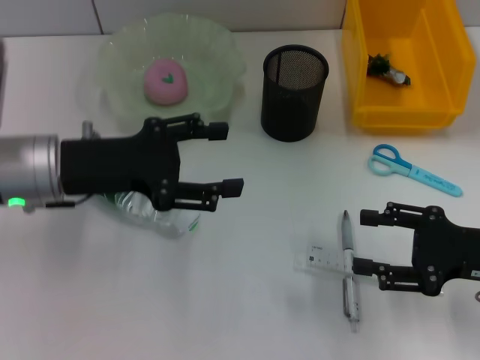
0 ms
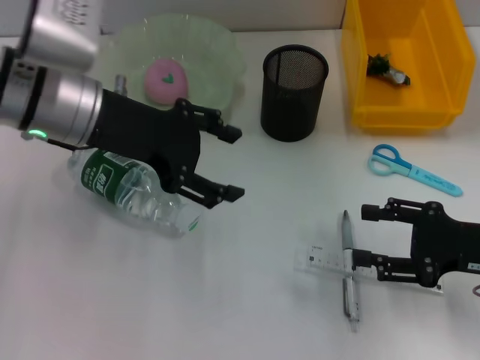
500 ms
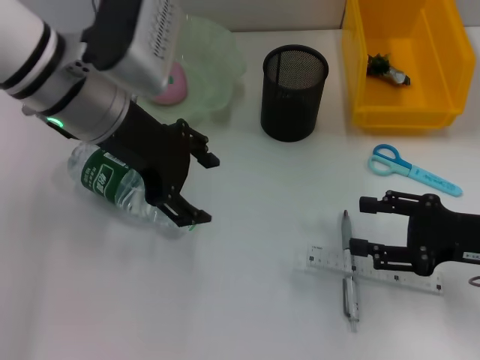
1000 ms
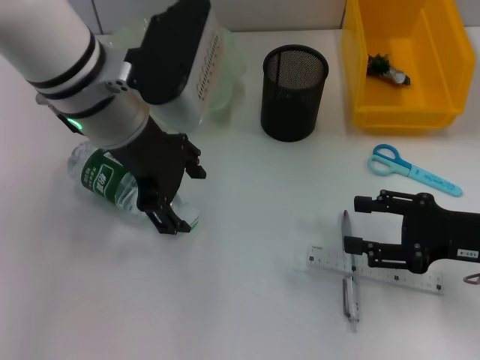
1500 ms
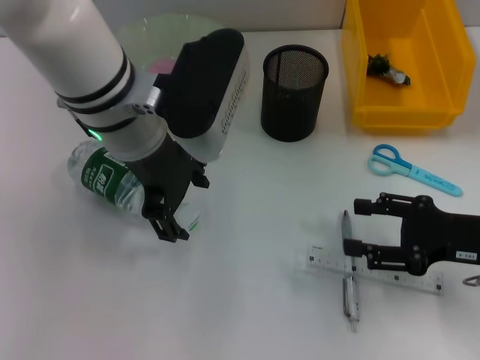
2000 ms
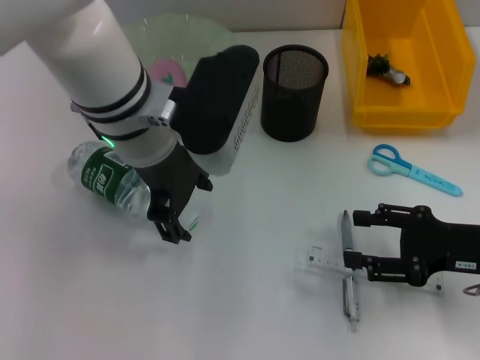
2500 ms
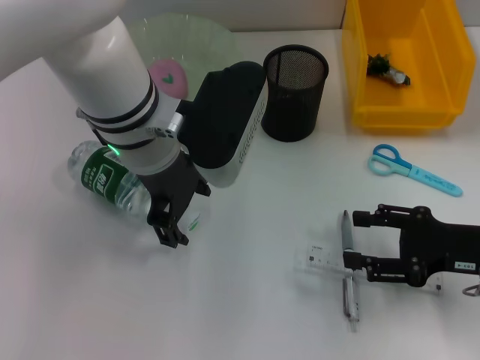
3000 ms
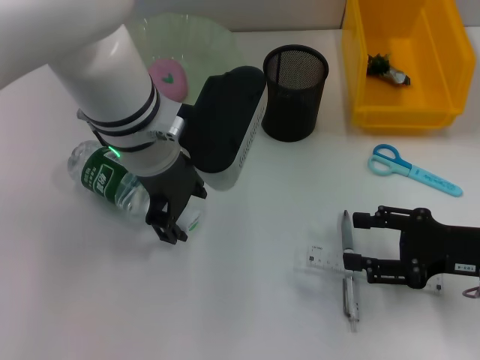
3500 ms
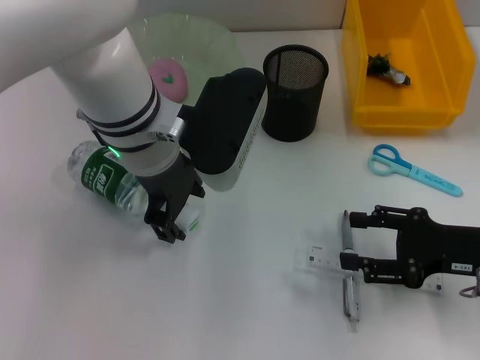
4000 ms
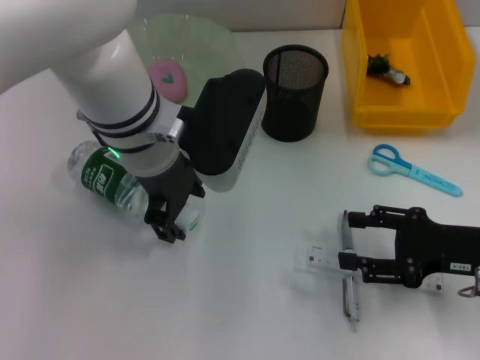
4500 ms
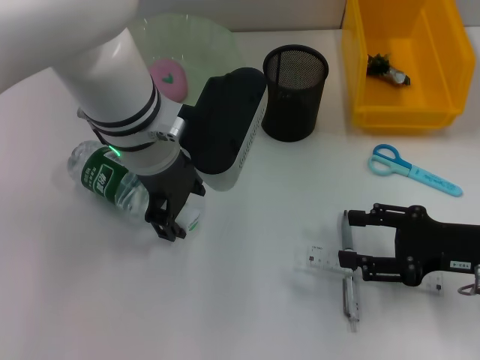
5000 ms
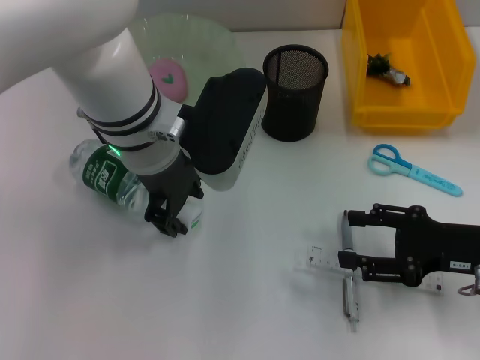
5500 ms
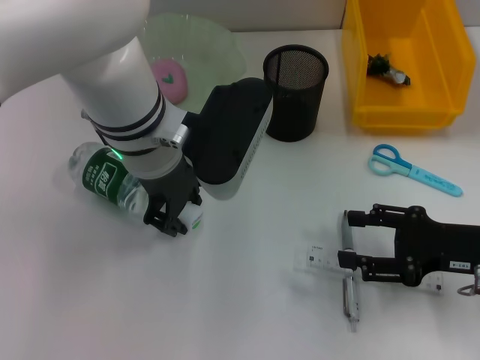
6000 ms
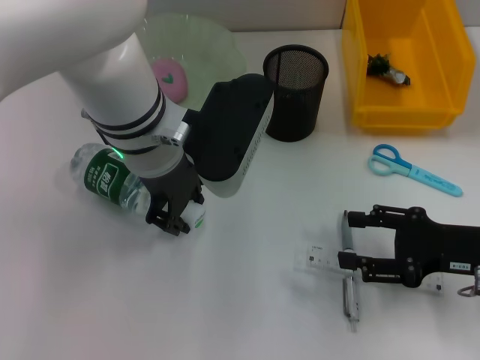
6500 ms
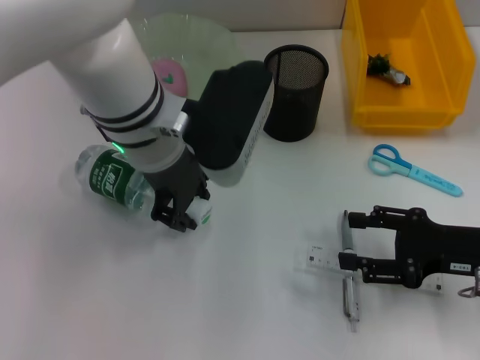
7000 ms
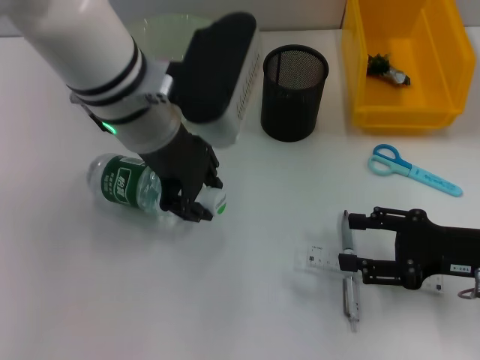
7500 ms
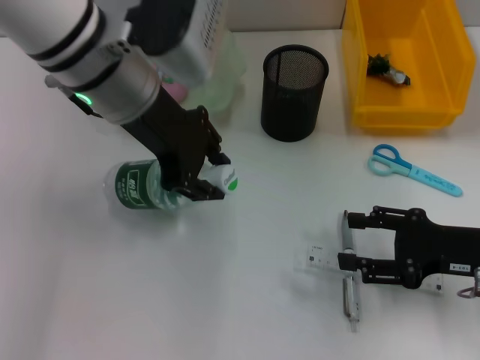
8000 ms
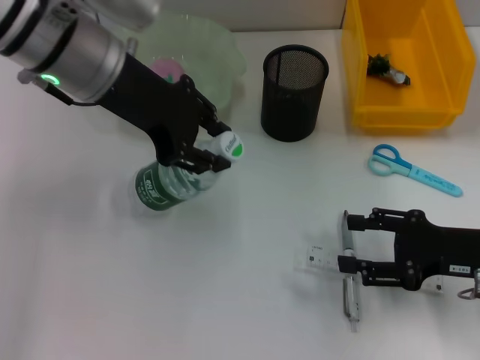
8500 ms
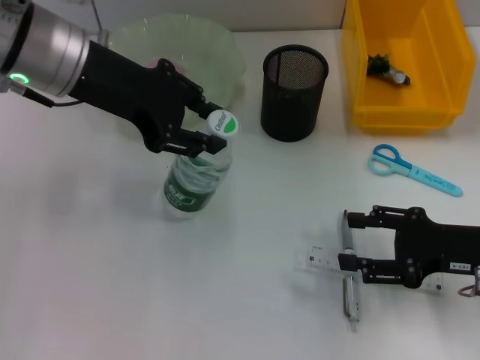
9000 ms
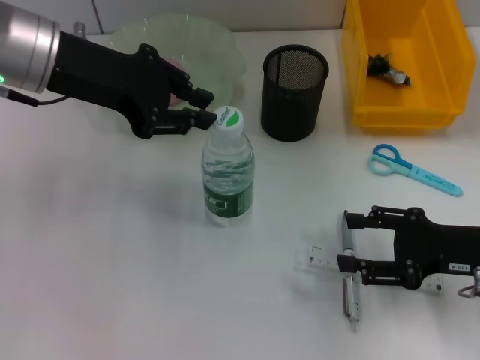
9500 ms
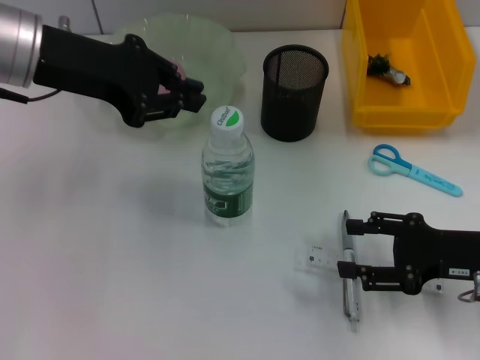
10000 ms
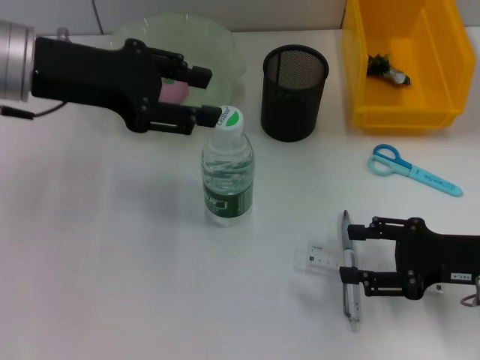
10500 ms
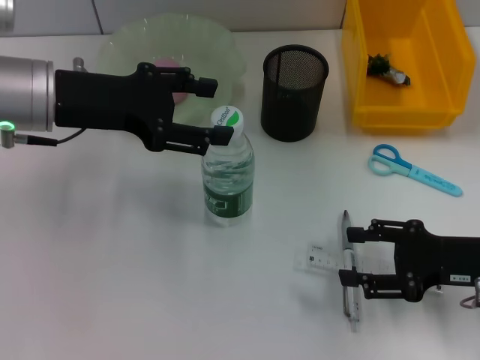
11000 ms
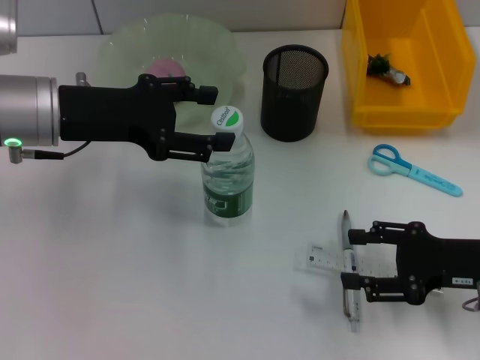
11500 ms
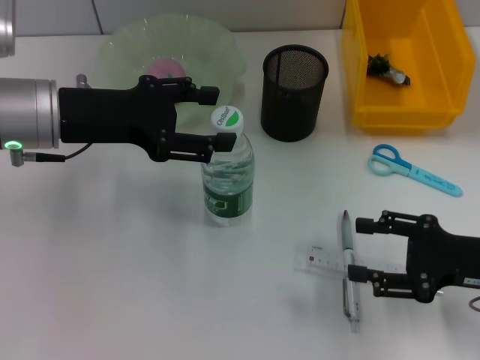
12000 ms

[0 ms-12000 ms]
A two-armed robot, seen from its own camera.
Step, 0 ms to 6000 ms: Grab the water bottle with the left hand.
Step, 6500 ms to 10500 ms: Place the water bottle on the table with the left hand.
0 ms to 2000 ms: The left gripper moves to the right and upward, about 15 cm.
2000 ms to 4000 ms: The grippers stay close to where they were, moving slightly.
4000 ms to 6000 ms: The two grippers keep their place.
6000 ms to 8000 ms: The left gripper moves upward, roughly 5 cm.
8000 ms to 10000 ms: The left gripper travels to the left by some 10 cm, and closes its fingers.
10000 ms to 12000 ms: The left gripper heads downward, covering roughly 5 cm, and opens up.

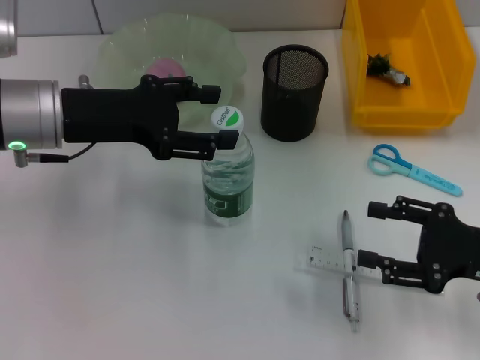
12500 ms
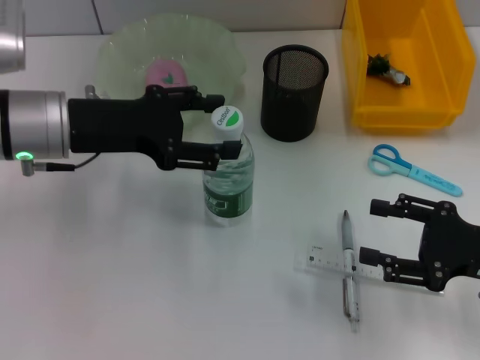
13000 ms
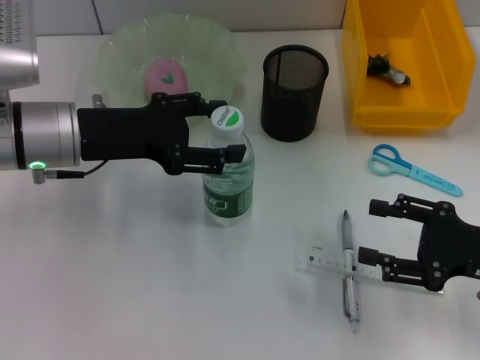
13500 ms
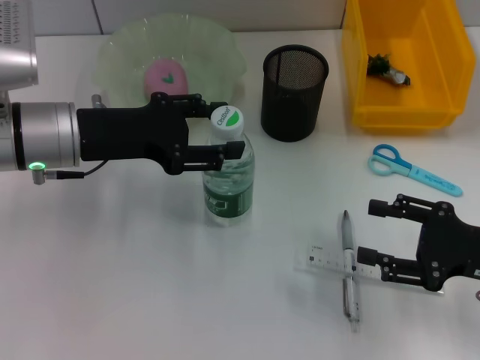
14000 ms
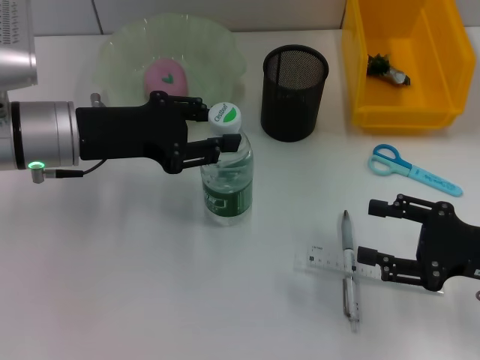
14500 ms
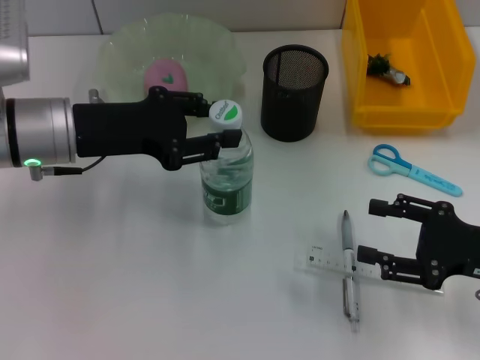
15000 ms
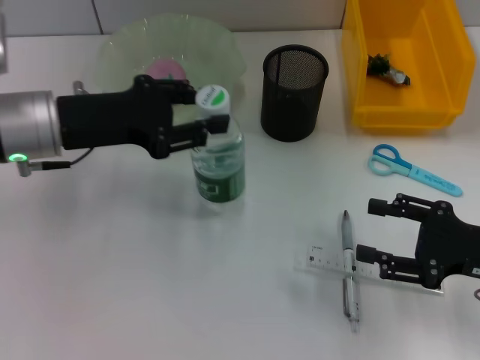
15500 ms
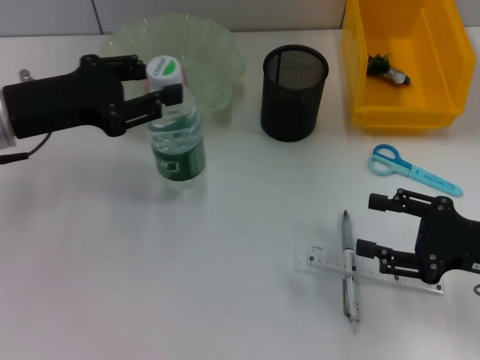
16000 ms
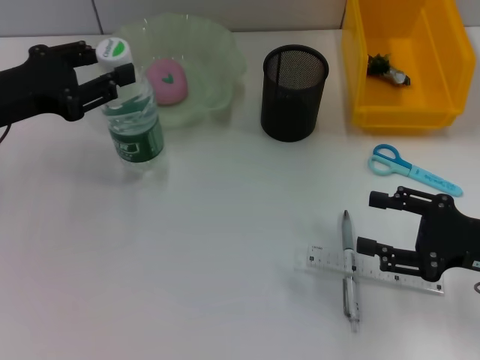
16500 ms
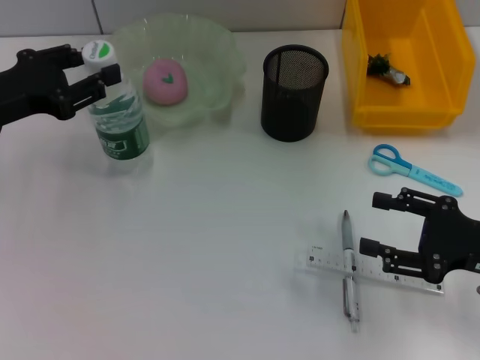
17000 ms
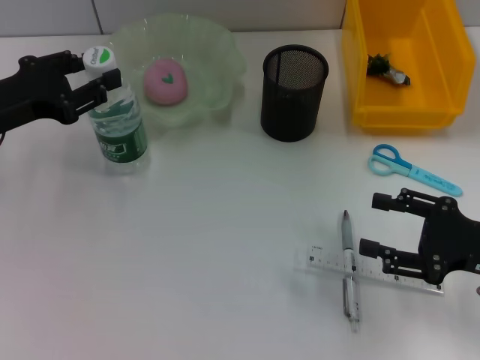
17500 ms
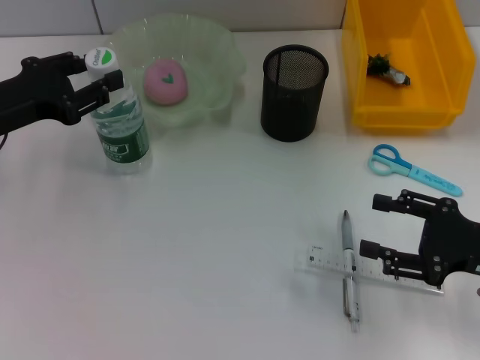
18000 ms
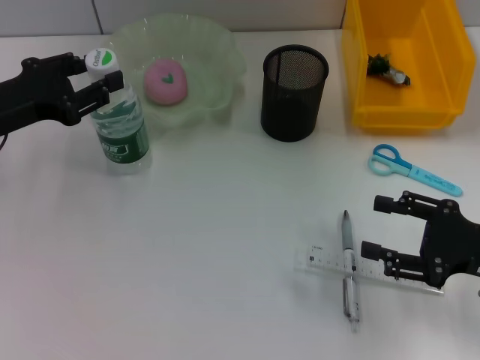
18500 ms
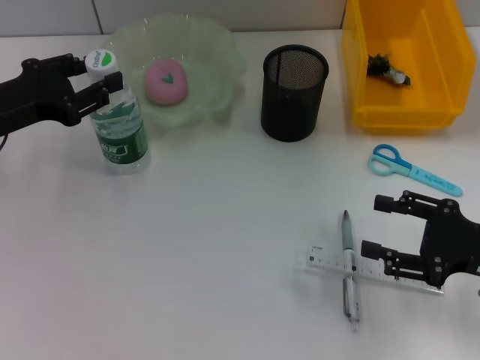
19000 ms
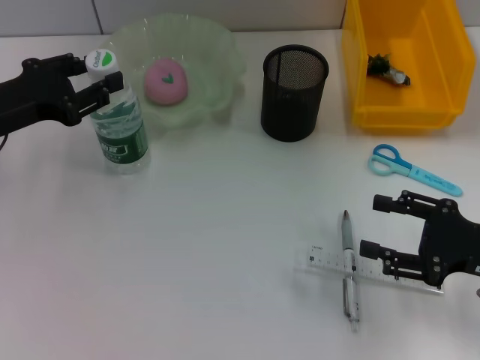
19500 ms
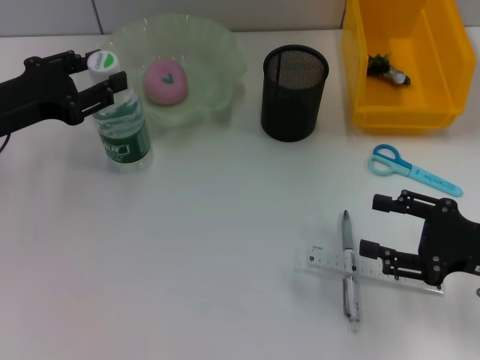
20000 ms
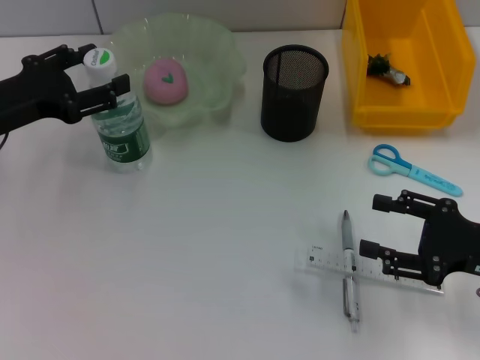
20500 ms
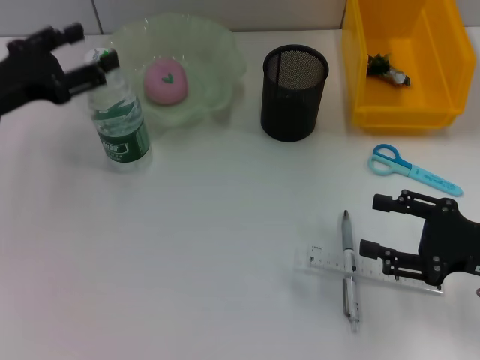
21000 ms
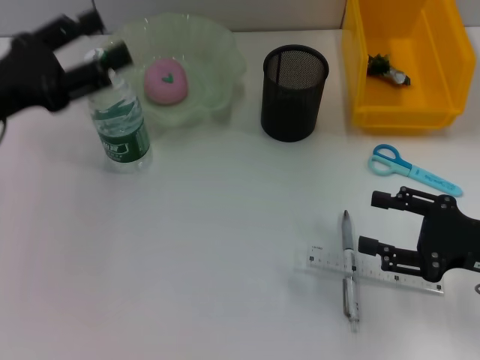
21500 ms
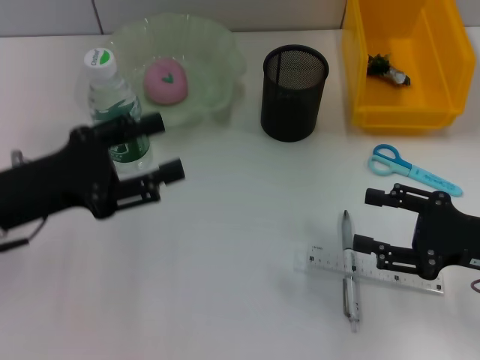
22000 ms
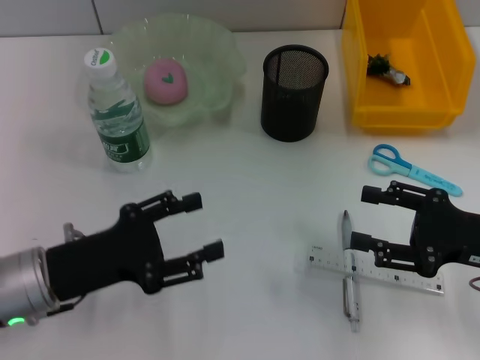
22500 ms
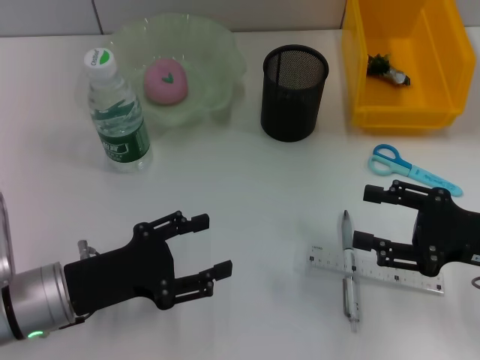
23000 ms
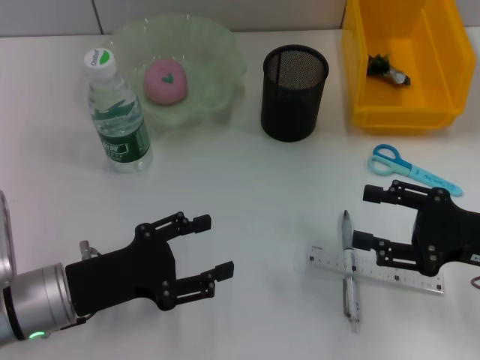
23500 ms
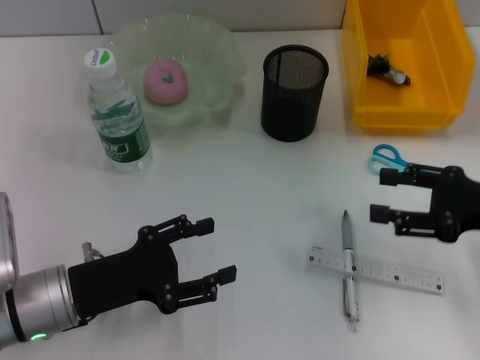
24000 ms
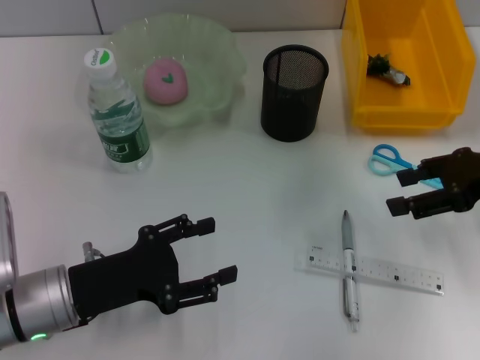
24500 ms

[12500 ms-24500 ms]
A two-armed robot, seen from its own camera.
12500 ms to 14500 ms: The left gripper closes up.
14500 ms to 16500 ms: The left gripper is displaced to the left by approximately 10 cm.
16500 ms to 18500 ms: The grippers move only a little.
18500 ms to 20500 ms: The left gripper opens.
20500 ms to 22500 ms: The left gripper heads backward, downward and to the right, covering approximately 15 cm.
22500 ms to 24500 ms: The right gripper moves forward and upward, roughly 10 cm.

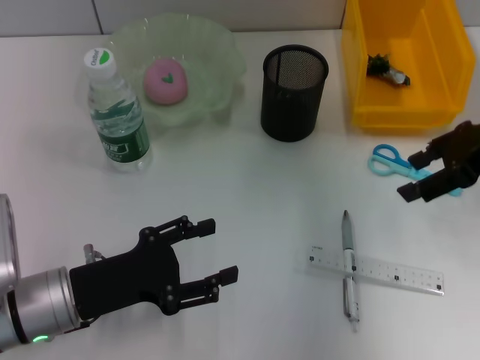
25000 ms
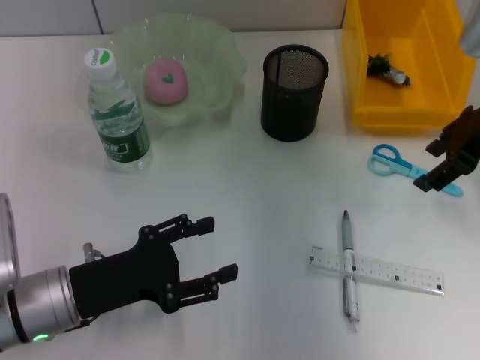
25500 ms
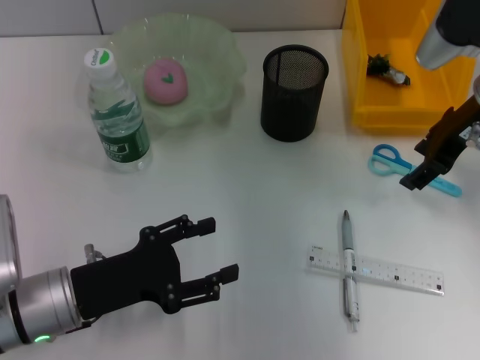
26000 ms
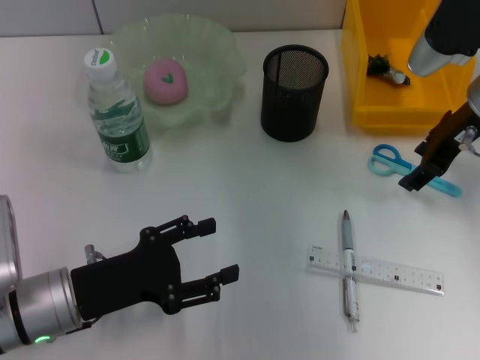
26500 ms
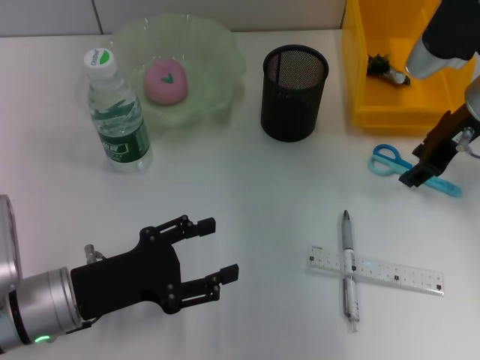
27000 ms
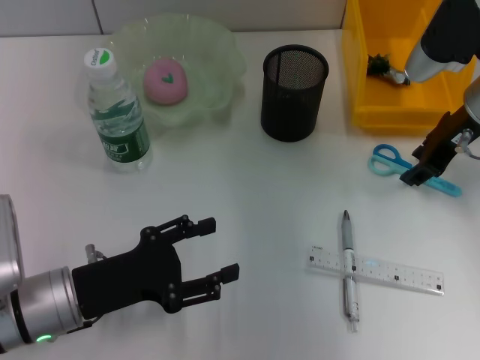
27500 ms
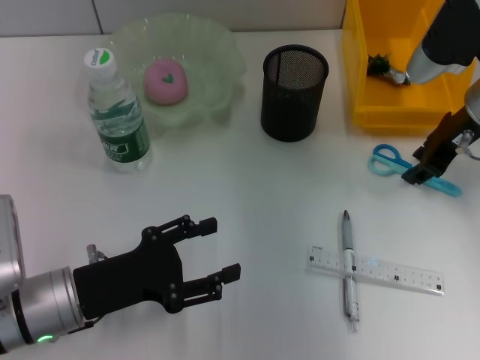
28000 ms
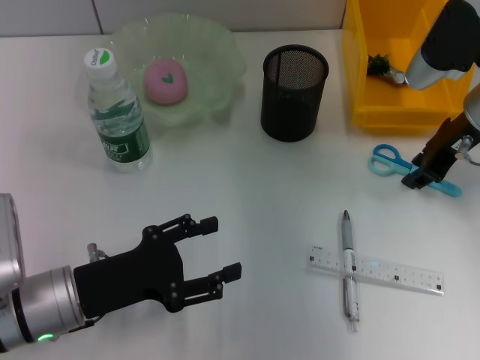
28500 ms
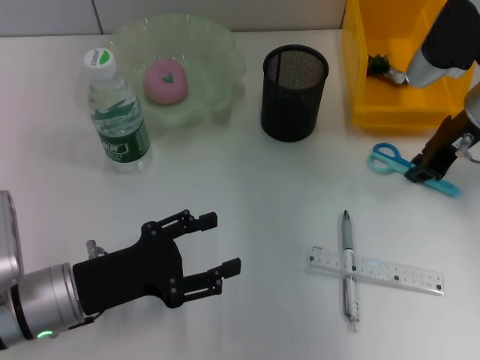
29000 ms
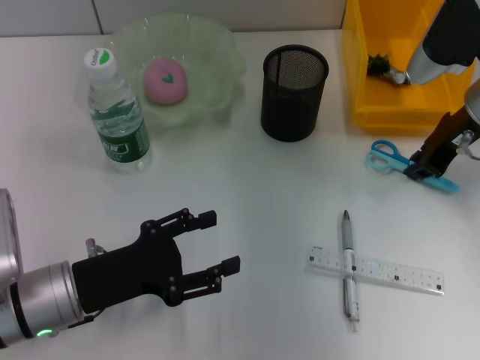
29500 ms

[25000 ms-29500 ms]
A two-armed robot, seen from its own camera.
Step, 25000 ms to 29000 ms: Grab the blue scissors with the right hand.
25000 ms to 27000 ms: The right gripper travels to the left by approximately 5 cm.
27000 ms to 29500 ms: The right gripper closes up.
